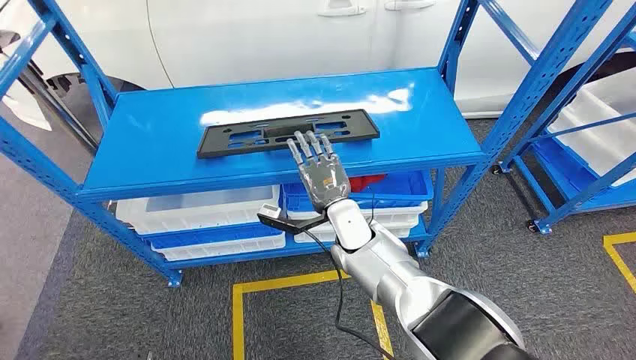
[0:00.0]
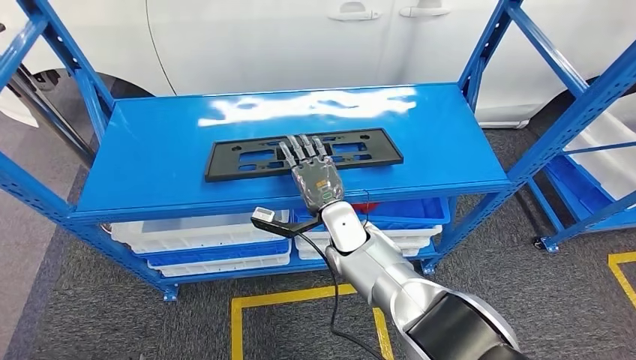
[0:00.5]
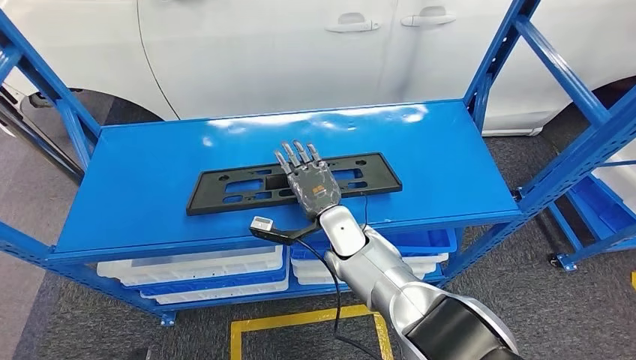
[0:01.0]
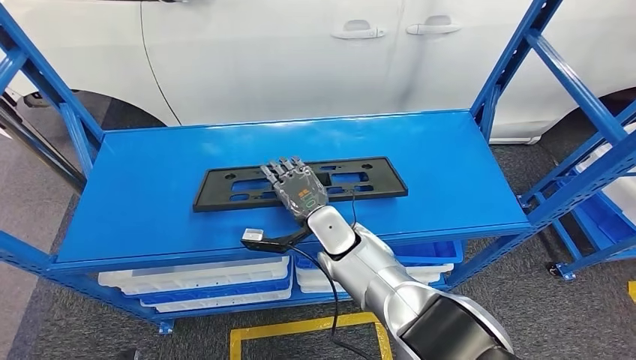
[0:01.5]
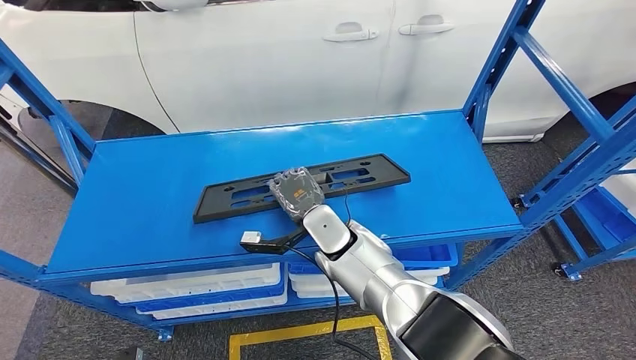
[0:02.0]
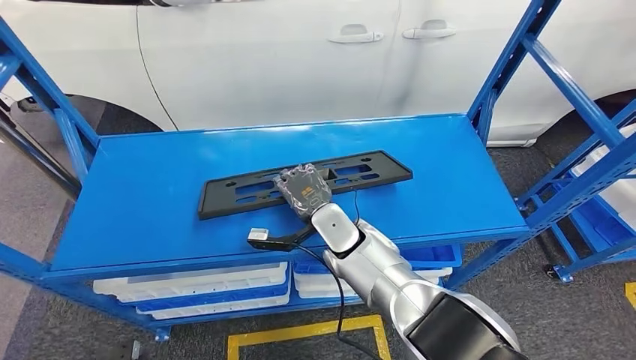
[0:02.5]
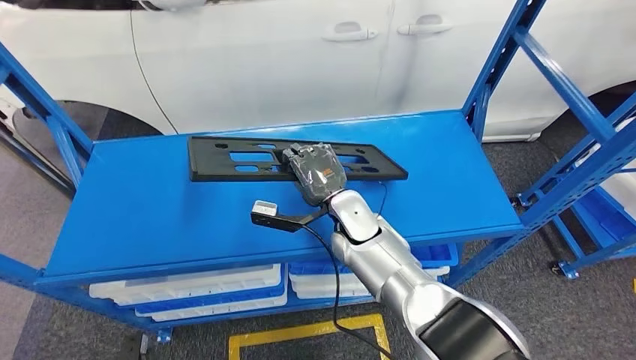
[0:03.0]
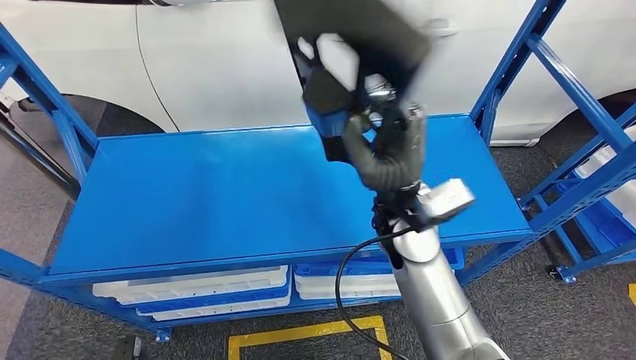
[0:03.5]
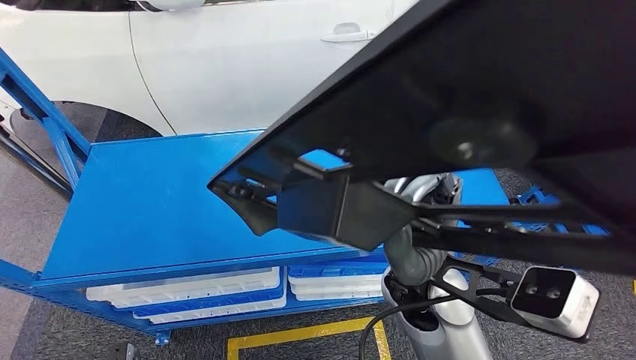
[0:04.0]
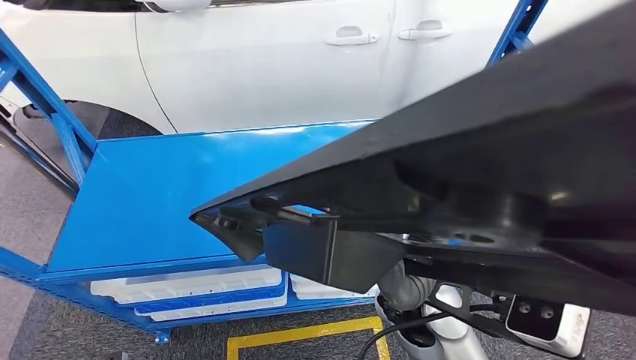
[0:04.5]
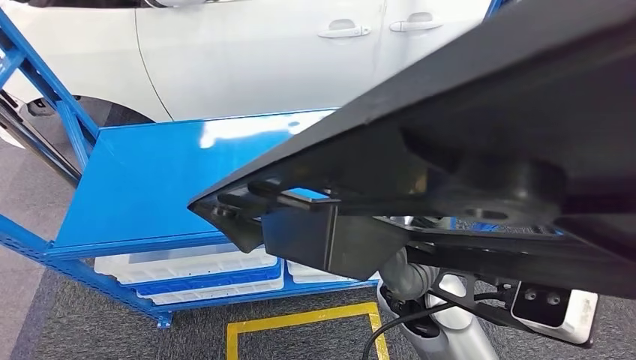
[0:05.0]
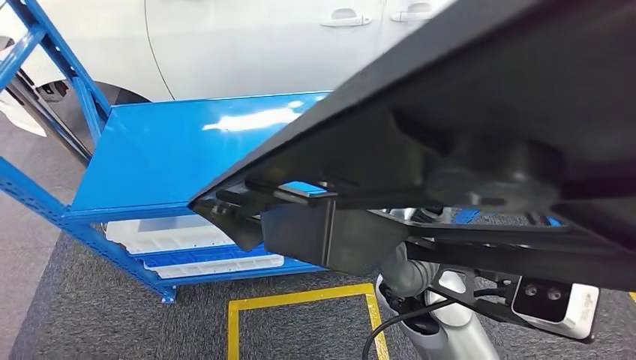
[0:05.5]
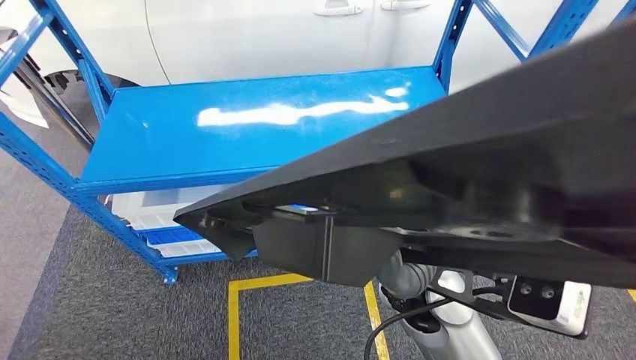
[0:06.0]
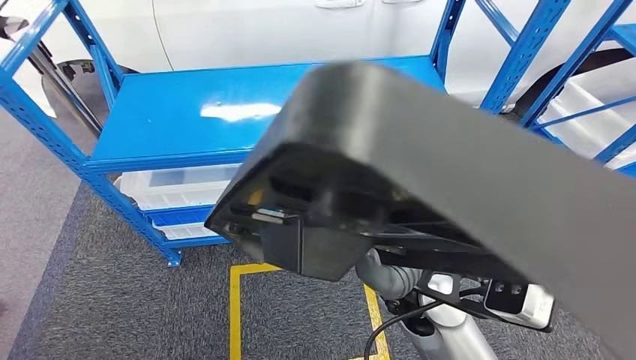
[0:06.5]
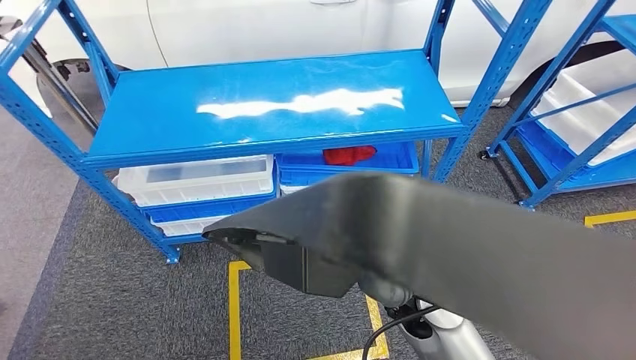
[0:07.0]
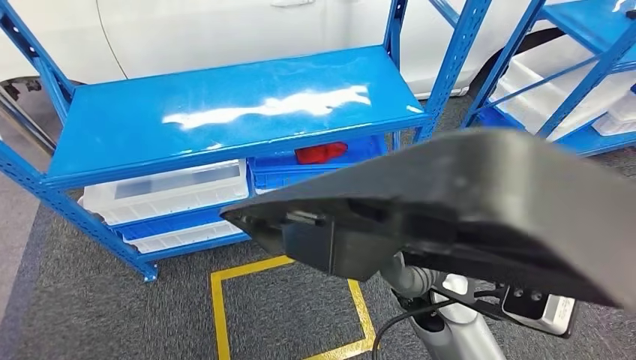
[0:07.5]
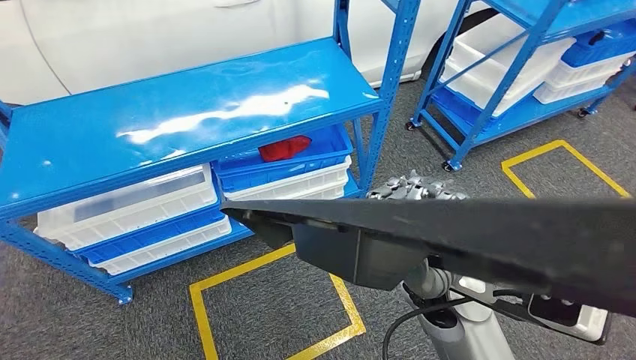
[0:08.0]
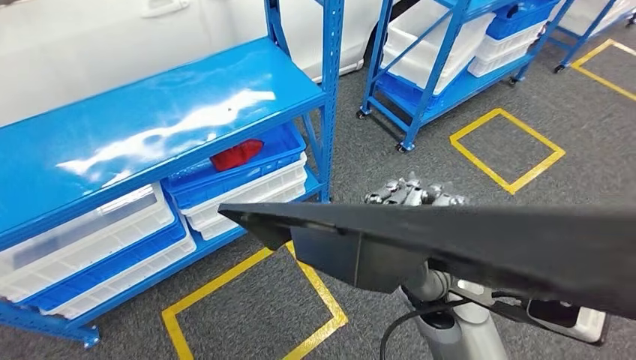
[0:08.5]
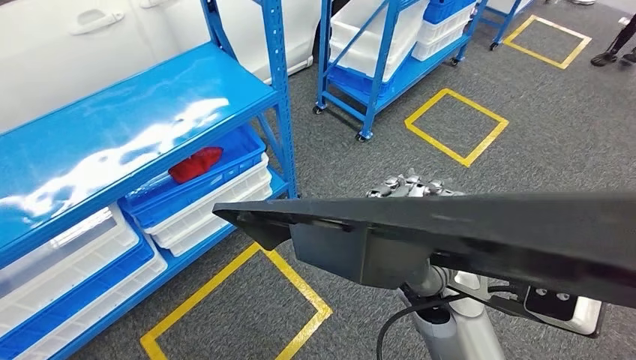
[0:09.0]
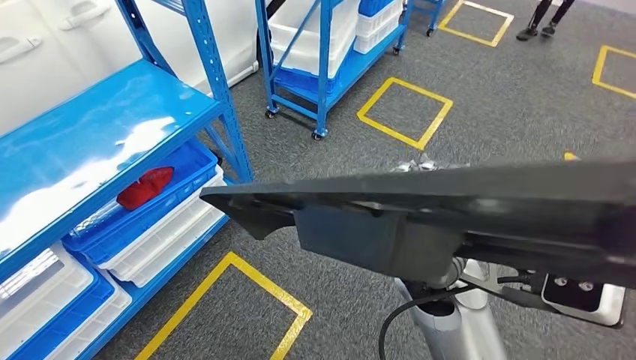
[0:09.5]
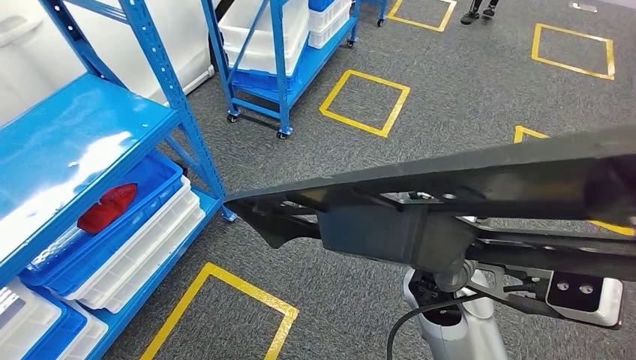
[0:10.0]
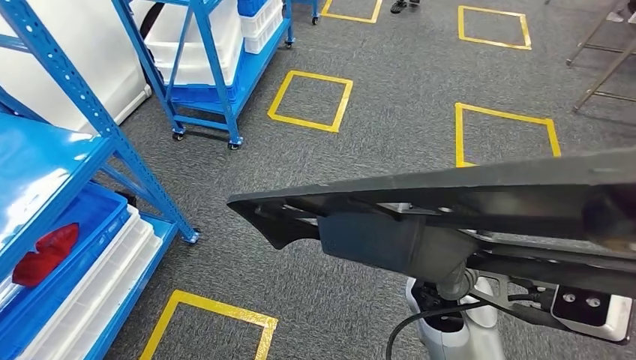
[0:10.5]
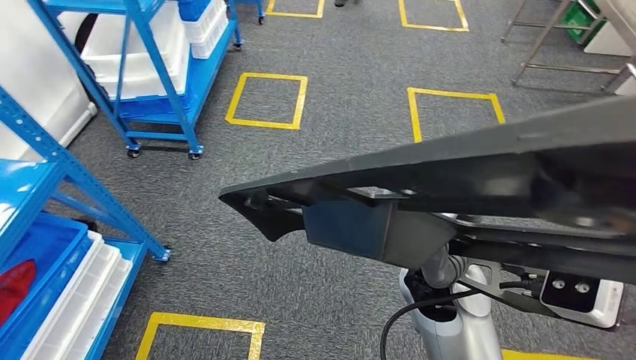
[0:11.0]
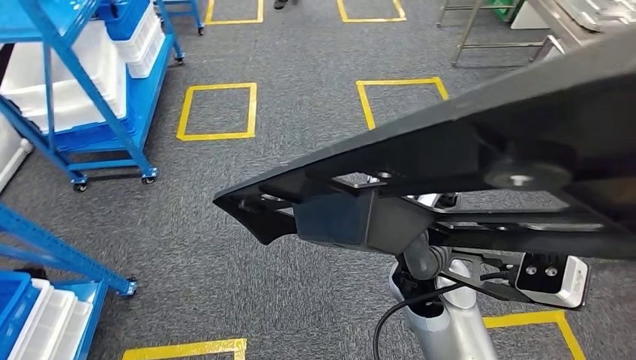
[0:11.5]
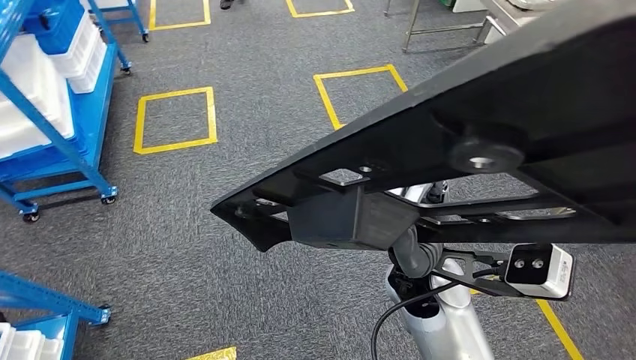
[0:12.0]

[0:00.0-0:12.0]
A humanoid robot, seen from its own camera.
Step, 0:00.0 to 0:04.0: Pick up the large material from the shelf.

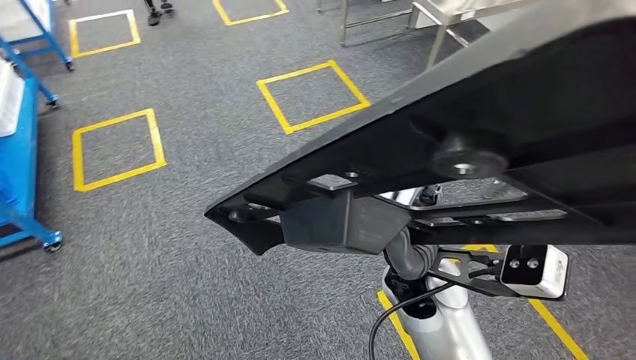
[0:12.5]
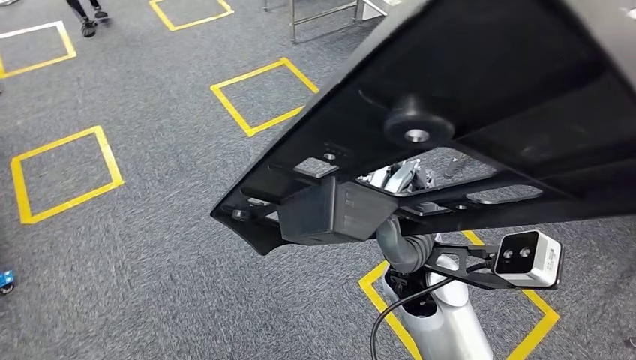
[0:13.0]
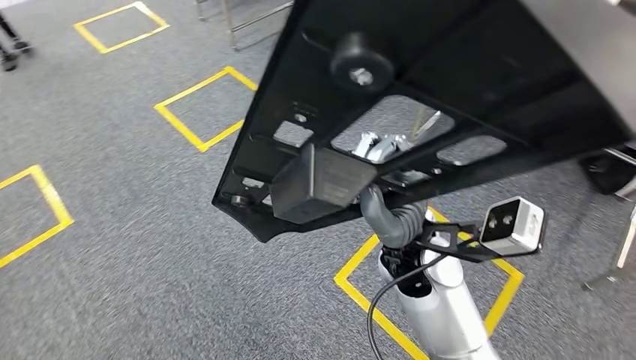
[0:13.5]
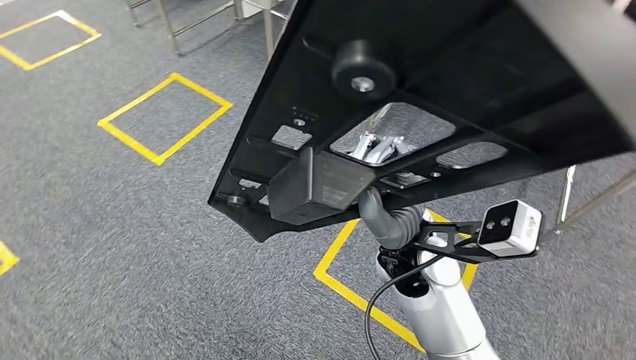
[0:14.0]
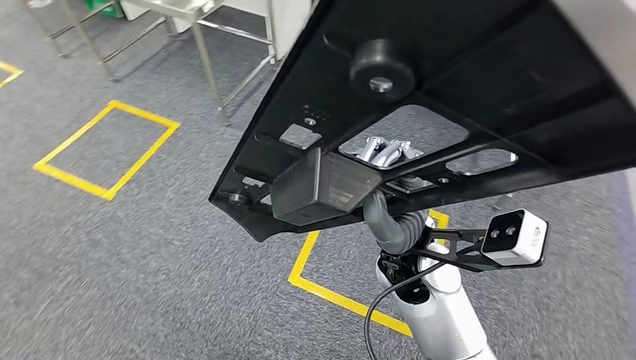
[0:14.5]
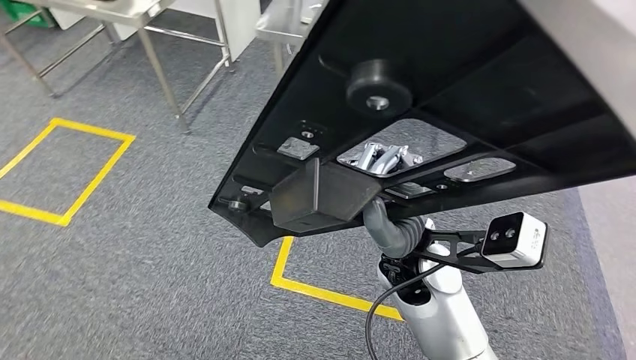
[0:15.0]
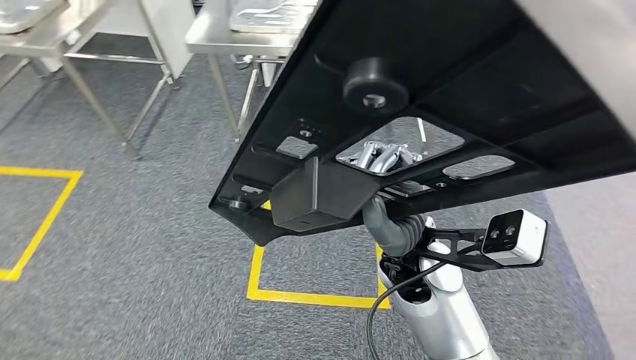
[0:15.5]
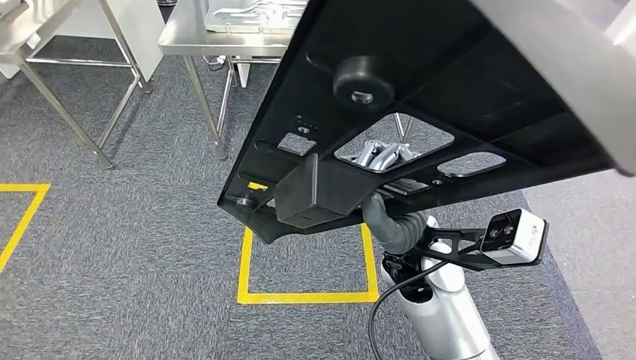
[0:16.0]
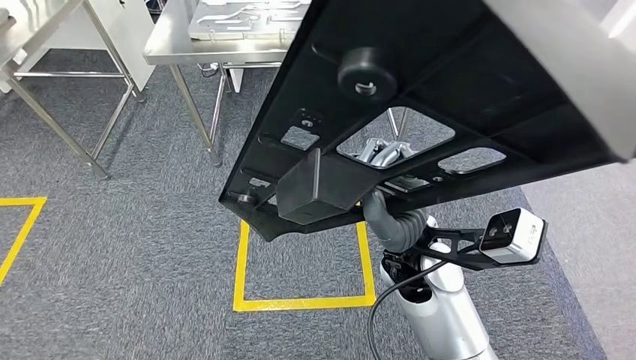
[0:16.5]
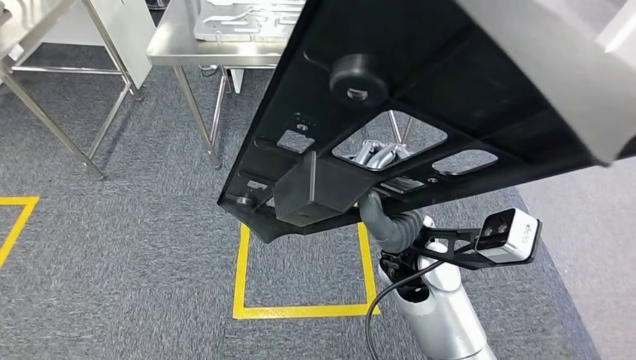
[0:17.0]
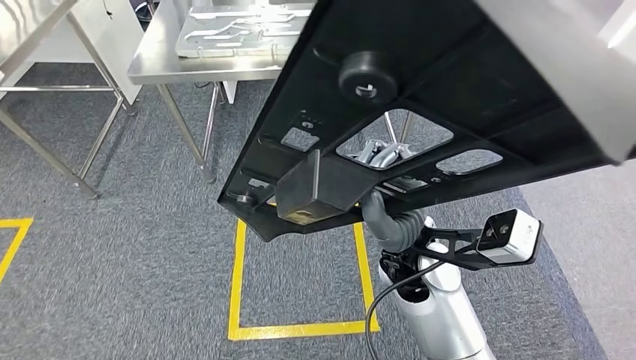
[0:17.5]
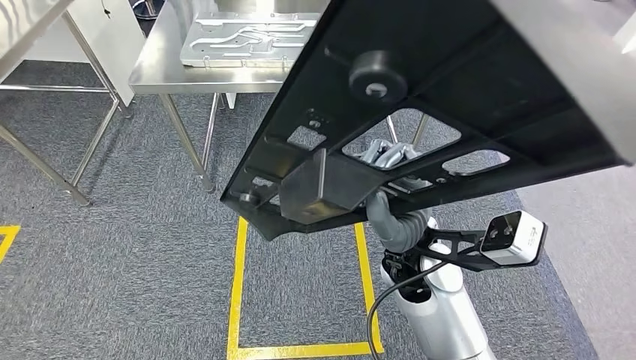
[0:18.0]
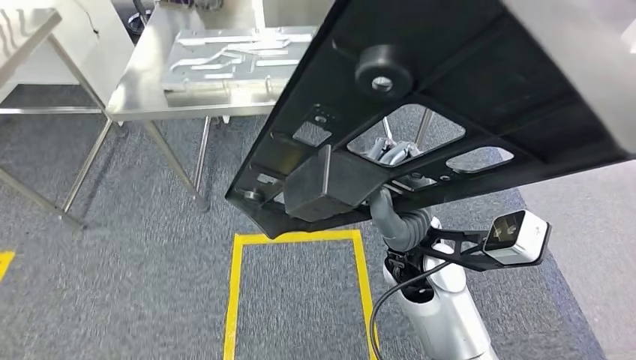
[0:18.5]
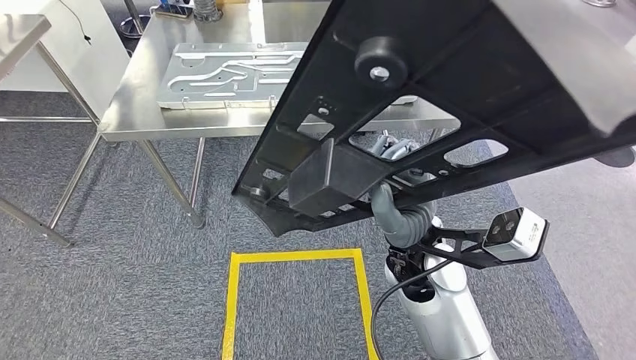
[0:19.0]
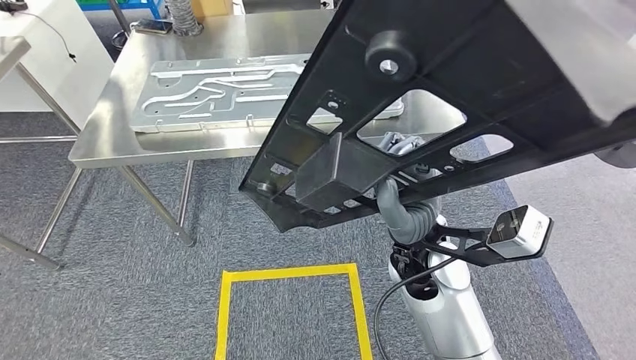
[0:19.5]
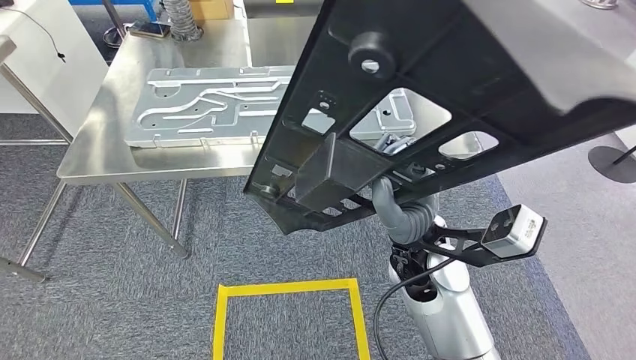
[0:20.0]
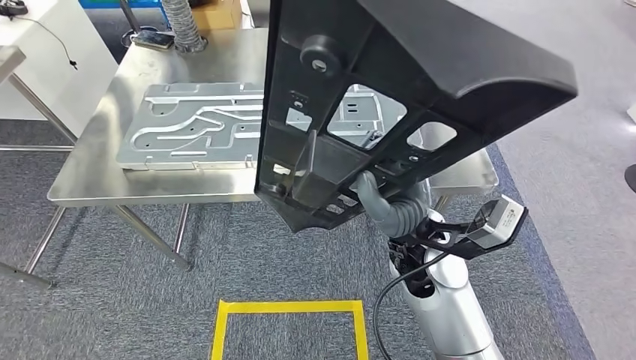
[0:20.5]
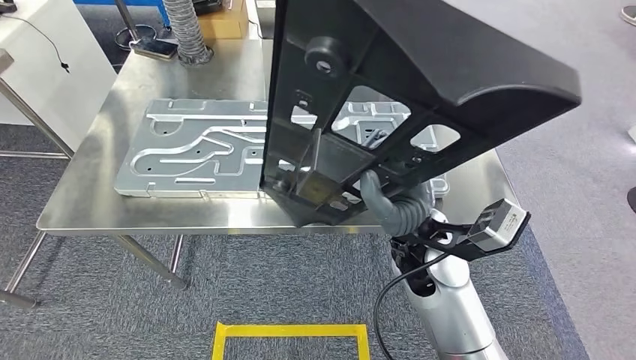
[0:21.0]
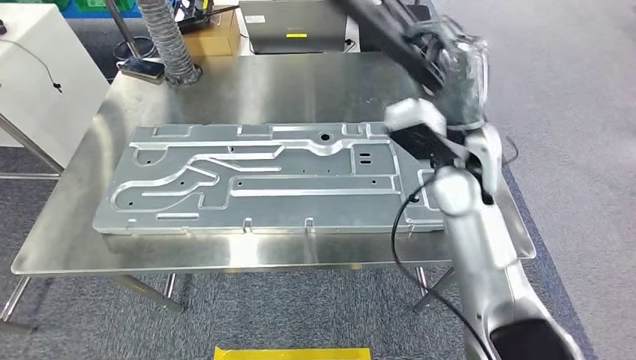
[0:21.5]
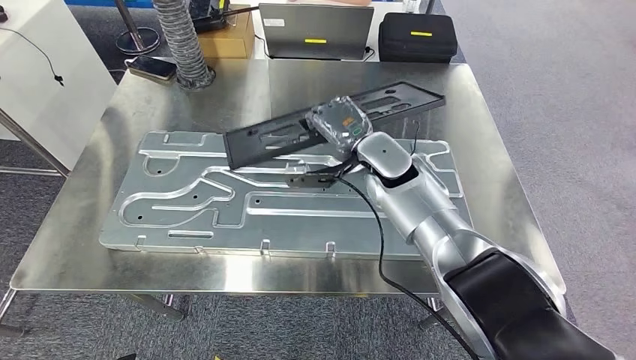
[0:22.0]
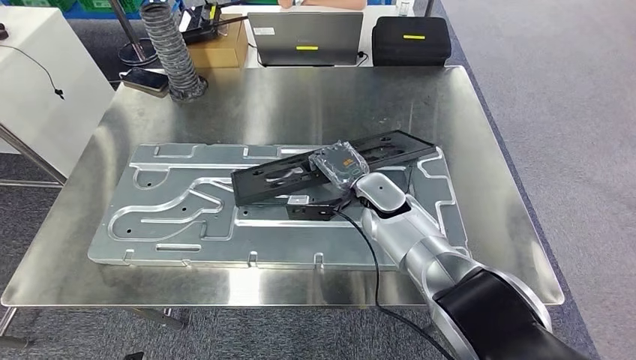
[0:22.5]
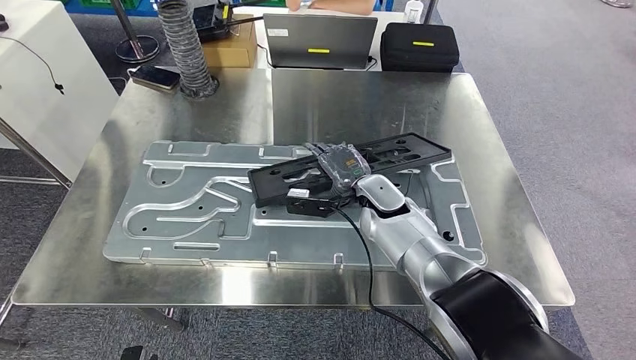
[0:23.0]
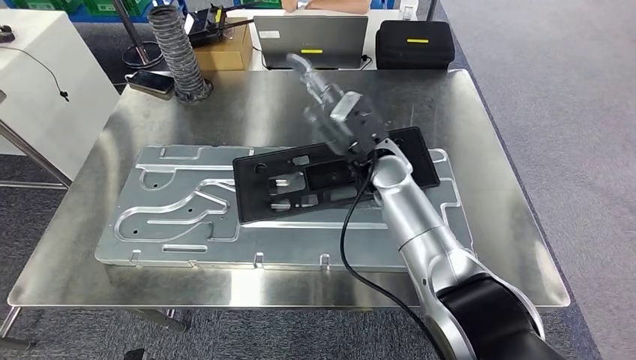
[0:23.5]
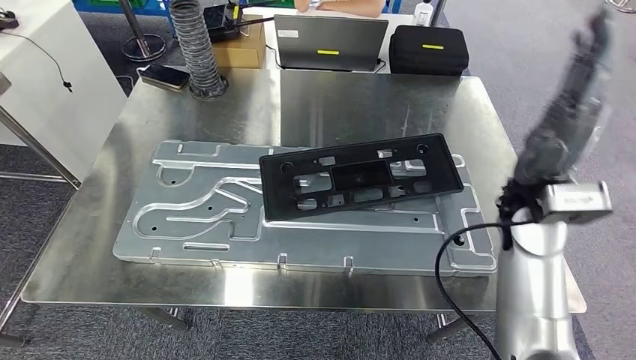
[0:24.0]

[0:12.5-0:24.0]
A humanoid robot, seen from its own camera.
Step, 0:12.5 to 0:22.5: Move the large material to the workbench.
